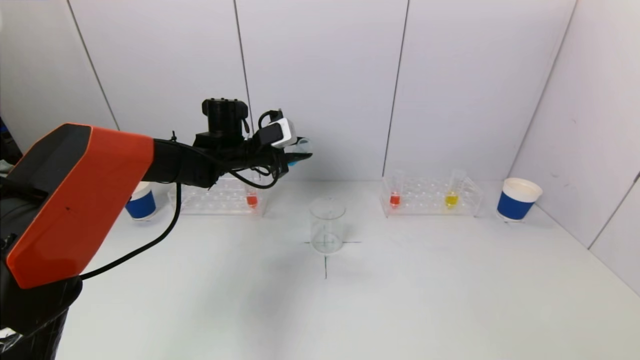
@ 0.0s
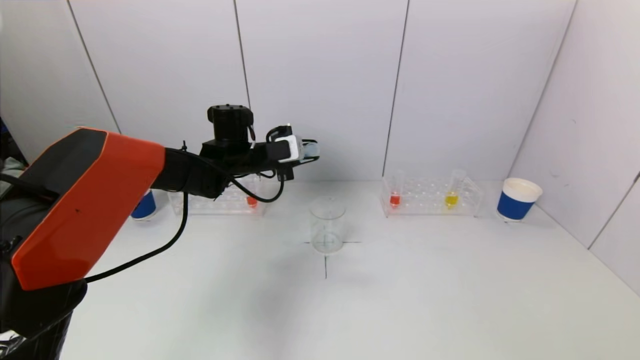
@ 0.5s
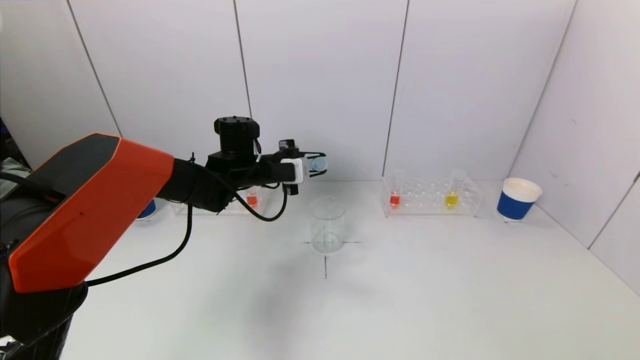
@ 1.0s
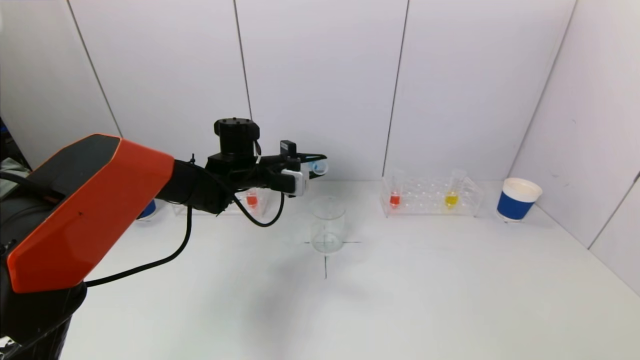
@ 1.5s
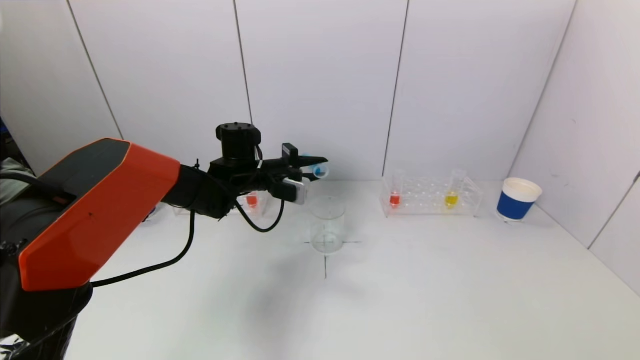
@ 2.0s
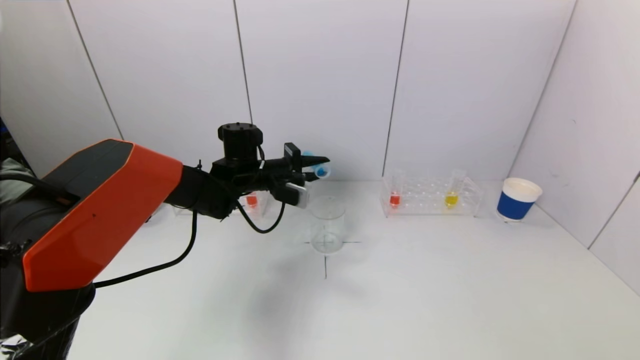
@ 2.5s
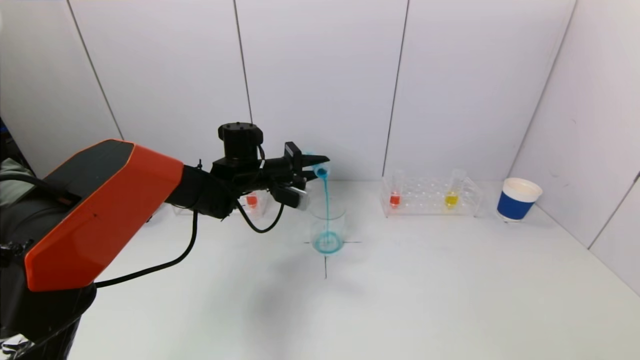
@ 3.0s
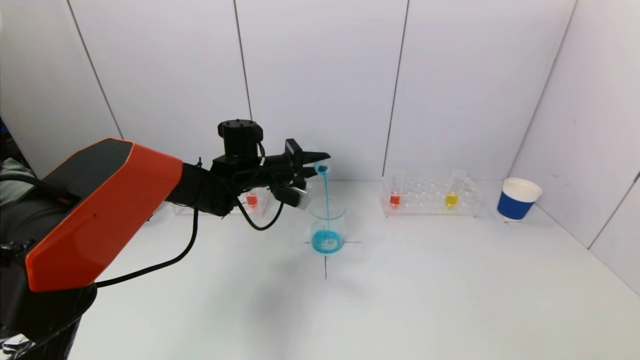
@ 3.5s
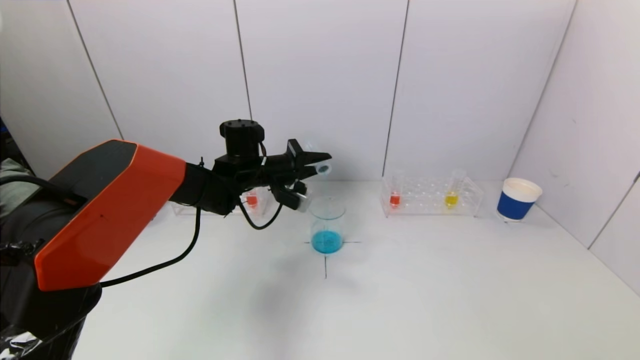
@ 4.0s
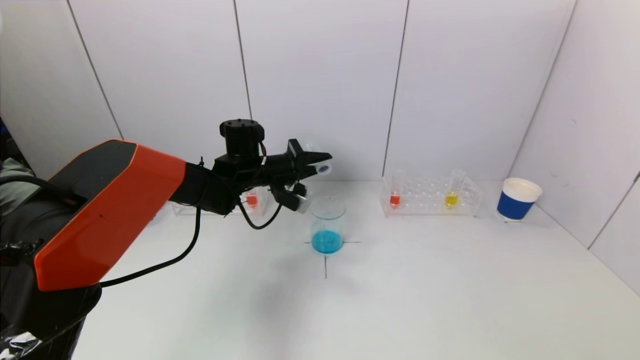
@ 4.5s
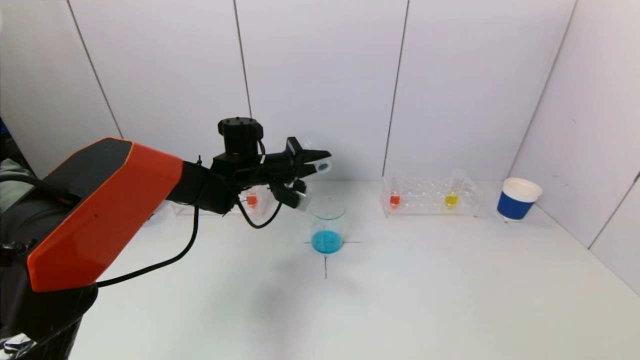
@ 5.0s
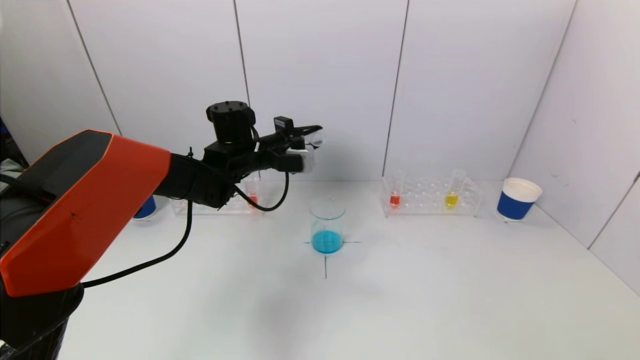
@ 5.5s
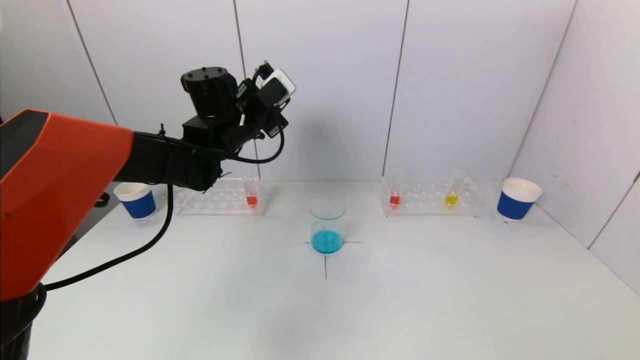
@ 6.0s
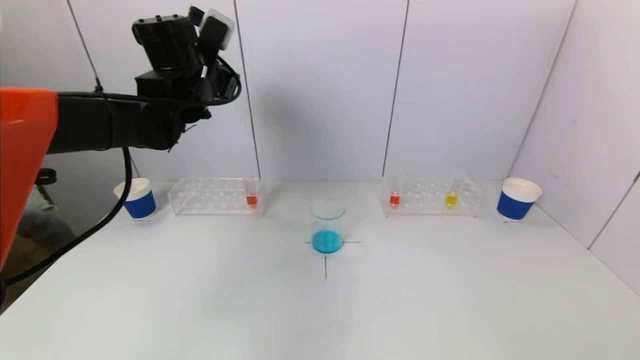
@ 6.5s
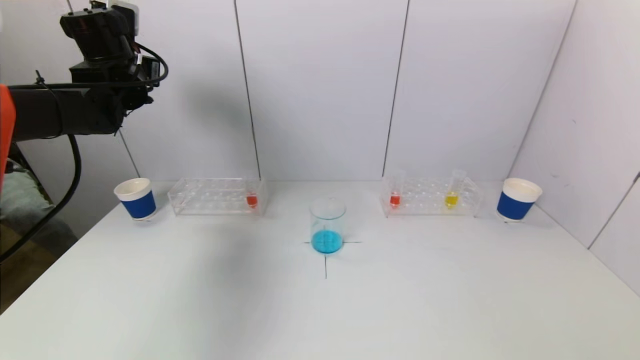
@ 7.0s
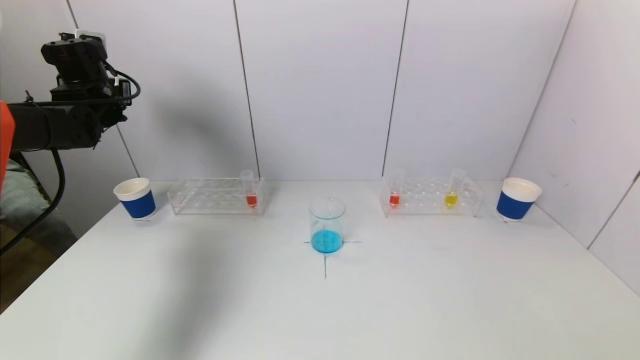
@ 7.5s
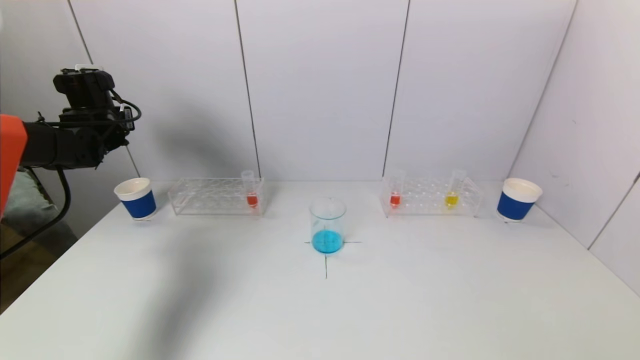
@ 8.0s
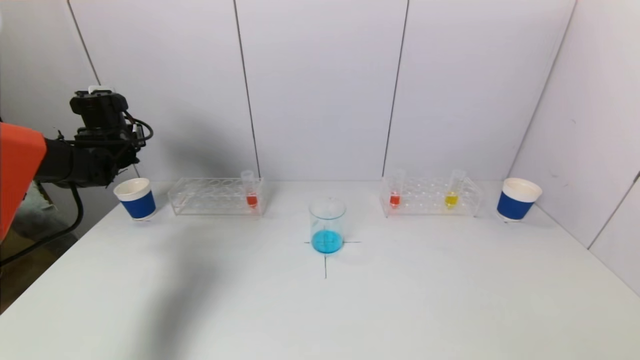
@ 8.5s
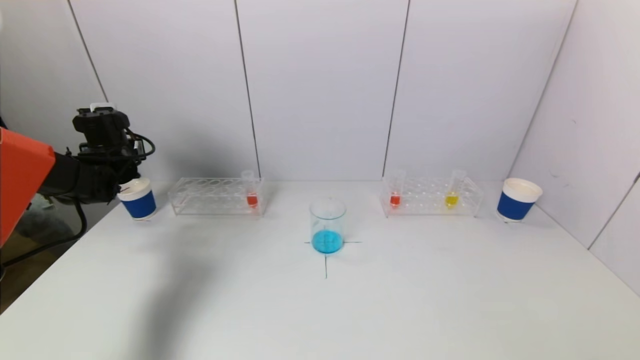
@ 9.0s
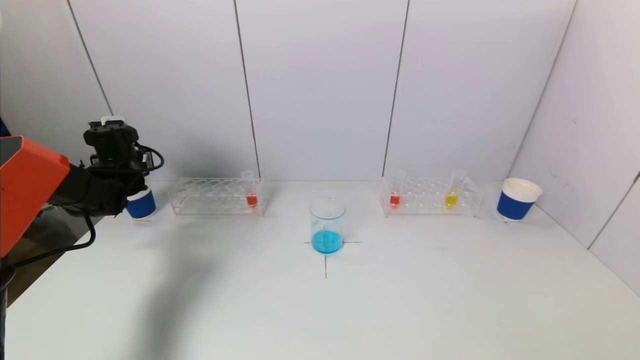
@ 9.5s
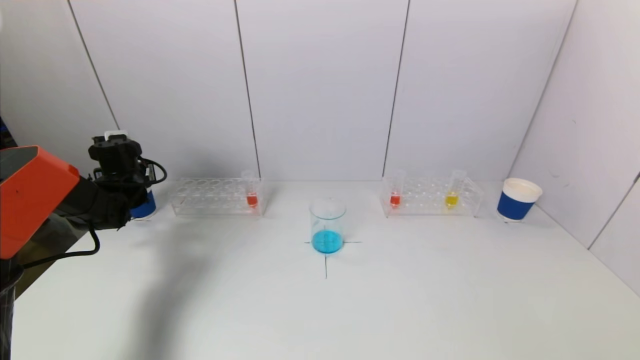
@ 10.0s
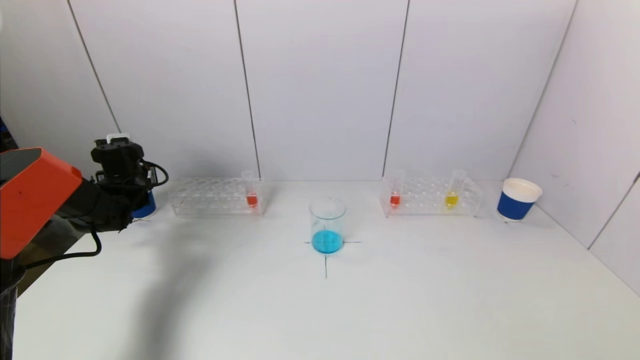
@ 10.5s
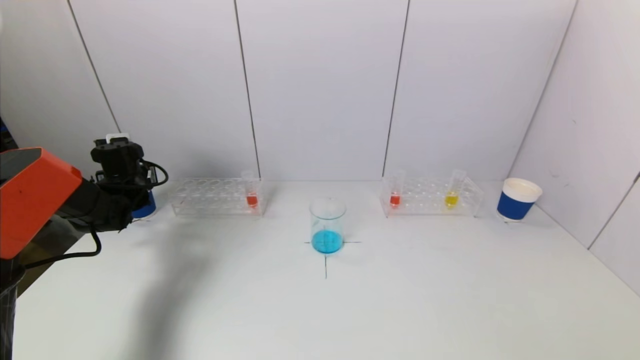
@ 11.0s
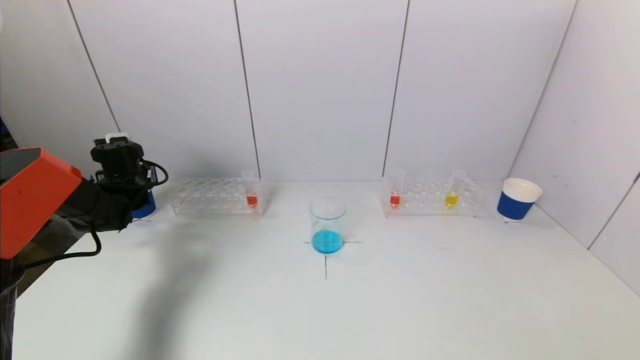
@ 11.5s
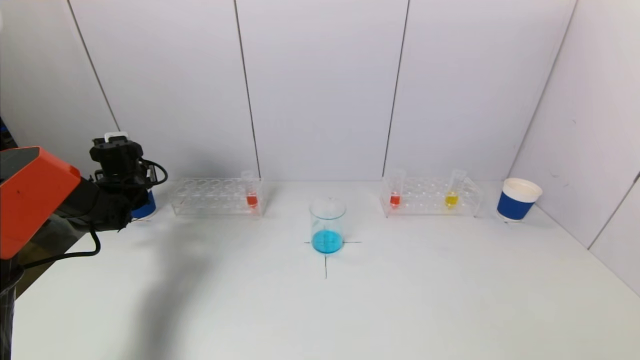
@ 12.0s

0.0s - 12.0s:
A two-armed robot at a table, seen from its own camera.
Task of the whole recording: pick up a test tube with pigment on left test tube rack and a test tube with pigment on right test tube rack by grippers and pour them into the beaker.
Step, 0.0s - 5.0s: Pour the blue reagent into the graduated cylinder with the left gripper.
4.0s - 6.0s: The left gripper travels upward by about 10 cm.
6.0s - 8.0s: The left gripper goes approximately 25 cm to the left.
8.0s - 10.0s: The left gripper moves downward, approximately 10 cm.
10.0s - 12.0s: Neither gripper changes place.

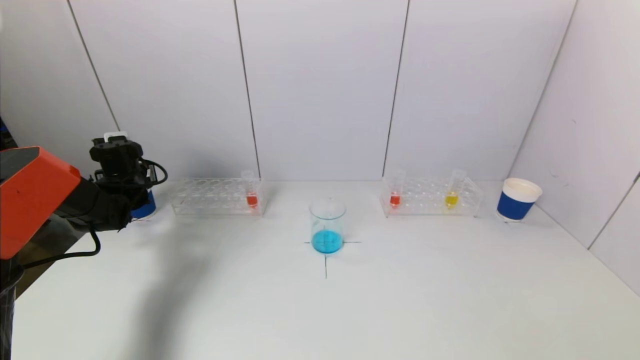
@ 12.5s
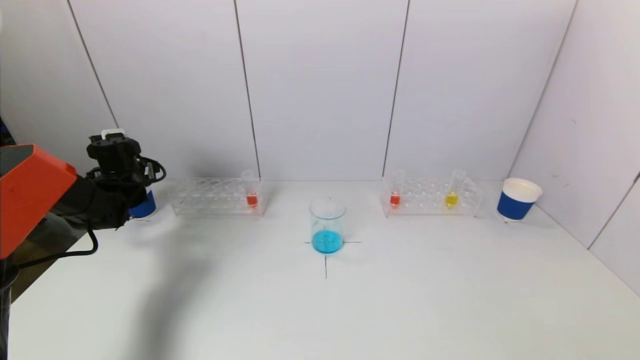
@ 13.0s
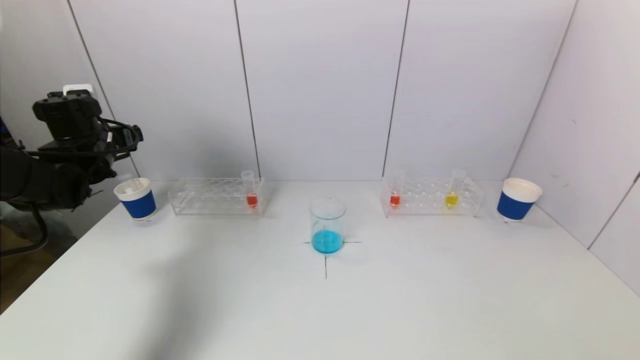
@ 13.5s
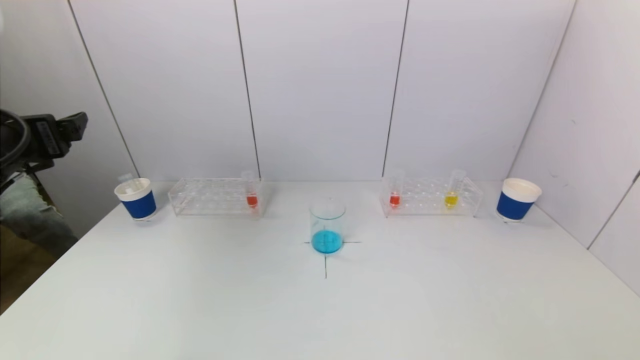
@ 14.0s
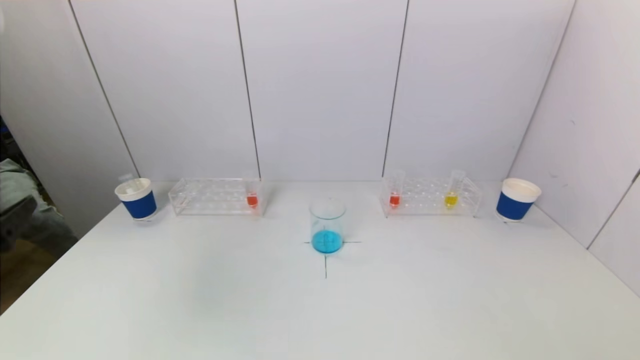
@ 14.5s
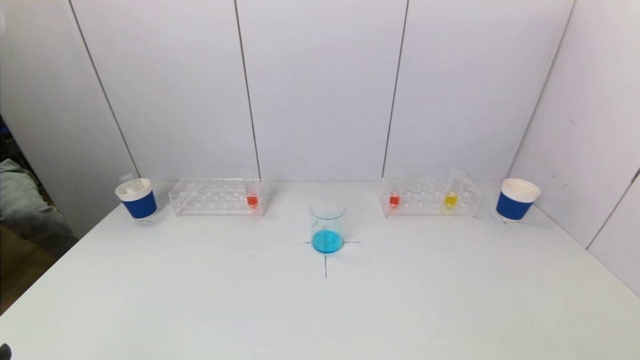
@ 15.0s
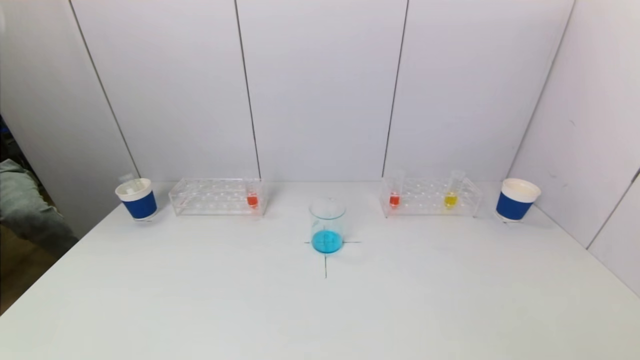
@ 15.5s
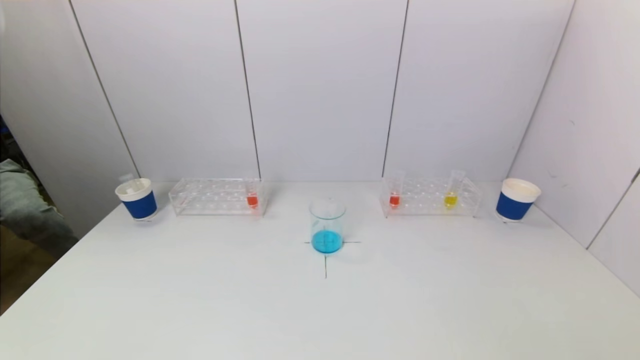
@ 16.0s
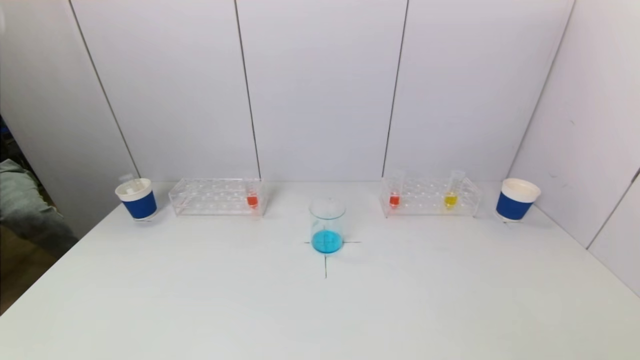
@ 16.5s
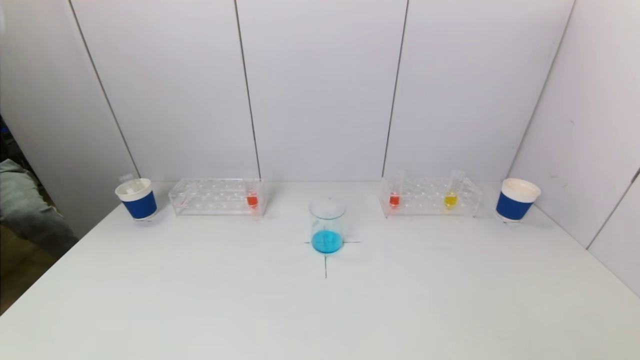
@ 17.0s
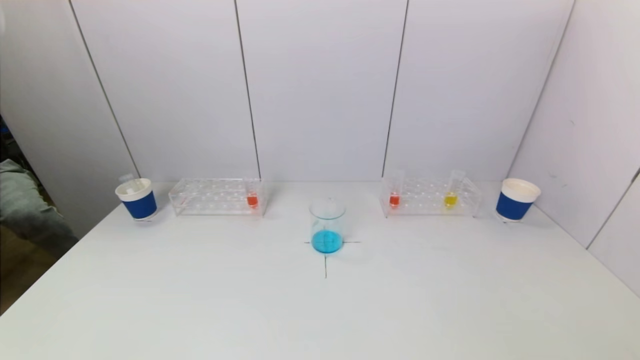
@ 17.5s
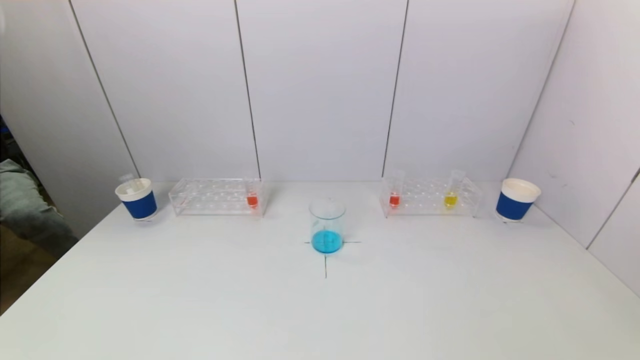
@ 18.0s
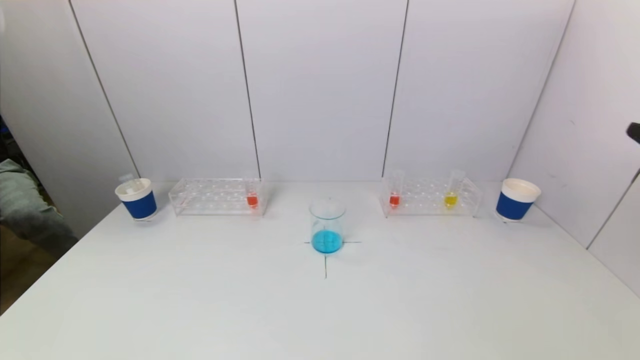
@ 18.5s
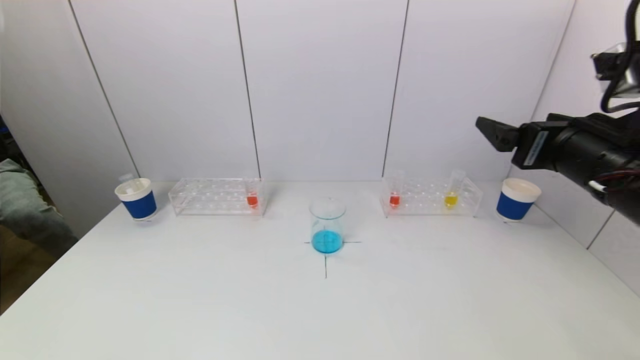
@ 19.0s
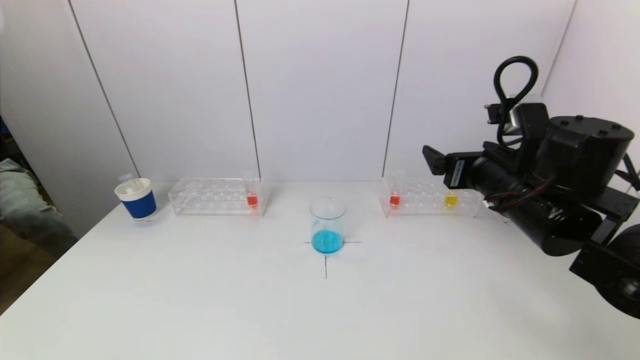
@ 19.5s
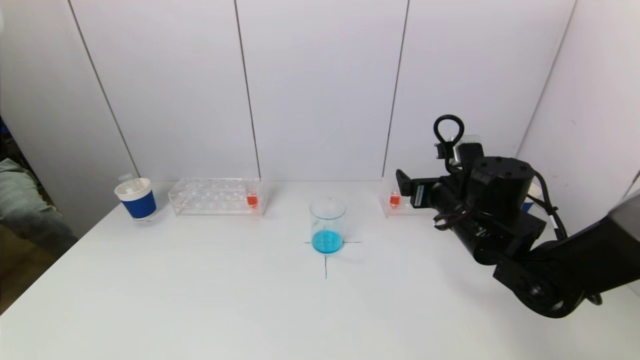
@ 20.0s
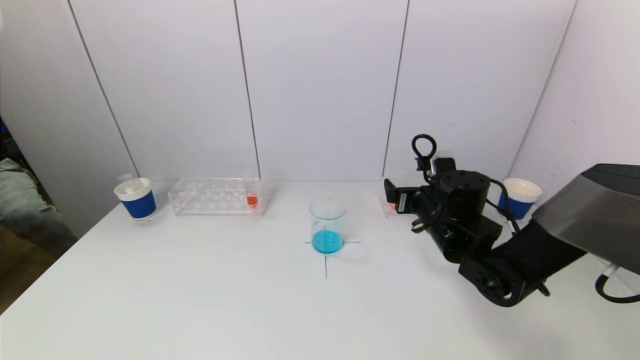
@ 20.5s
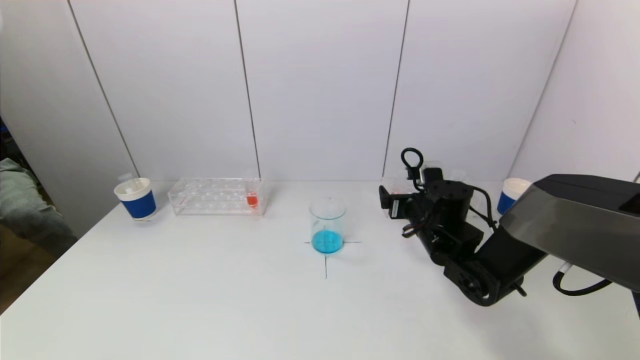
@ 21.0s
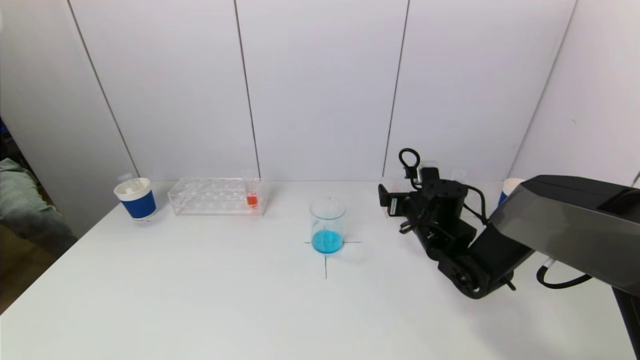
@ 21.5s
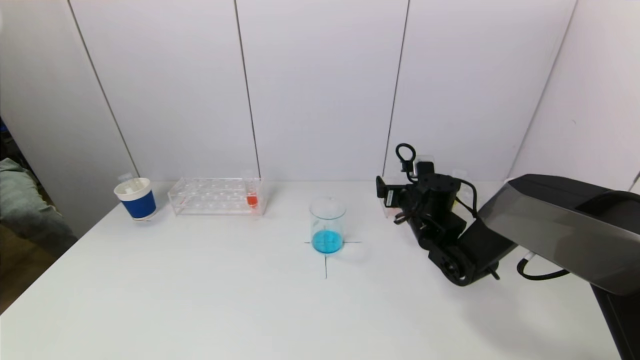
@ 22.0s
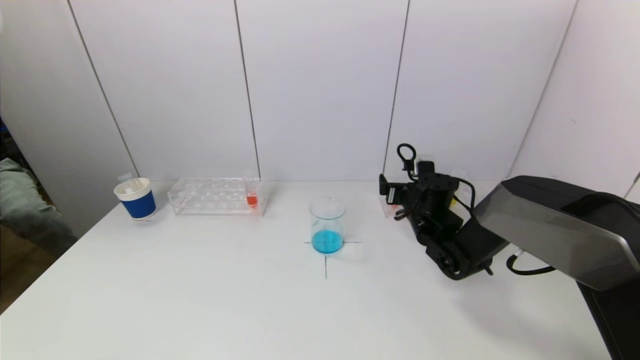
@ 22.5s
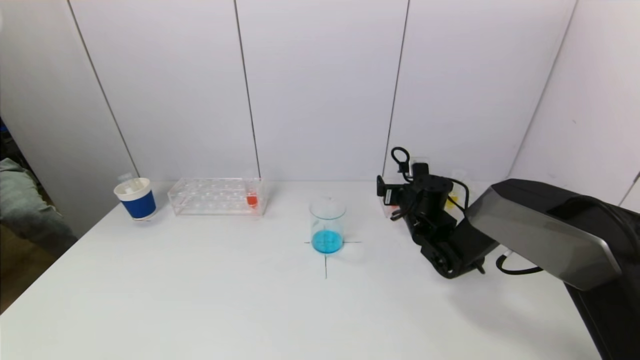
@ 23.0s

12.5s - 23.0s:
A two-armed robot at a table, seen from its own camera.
Task of the whole recording: pick up a test tube with pigment on left test tube rack and a test tube with pigment on right test tube rack by grippers and pour them into the beaker.
12.5s - 14.5s: The left gripper goes approximately 35 cm backward, and opens its fingers.
14.5s - 16.5s: The left gripper goes about 20 cm downward and backward.
16.5s - 19.0s: The right gripper moves forward and upward, approximately 30 cm.
19.0s - 21.0s: The right gripper is displaced downward, forward and to the left by about 25 cm.
21.0s - 23.0s: The right gripper moves forward, some 5 cm.
